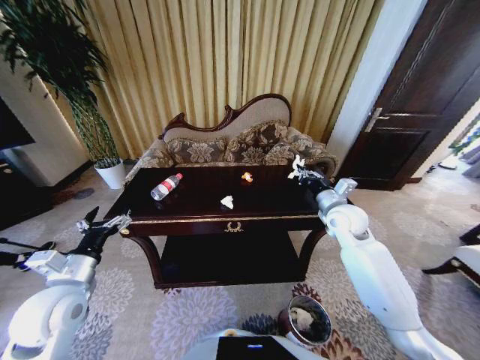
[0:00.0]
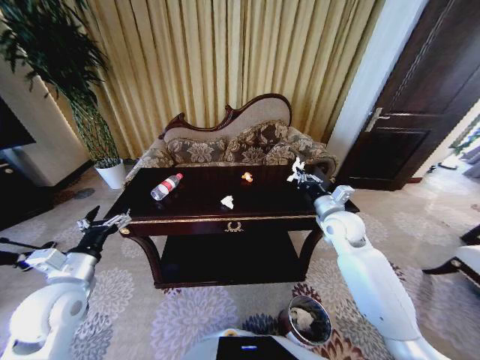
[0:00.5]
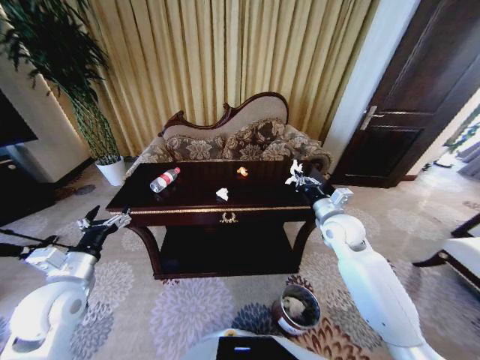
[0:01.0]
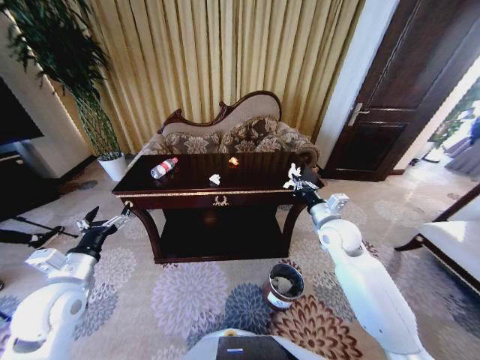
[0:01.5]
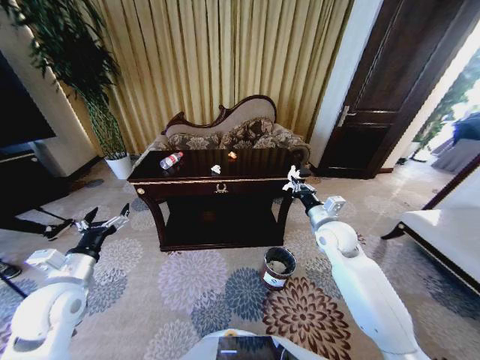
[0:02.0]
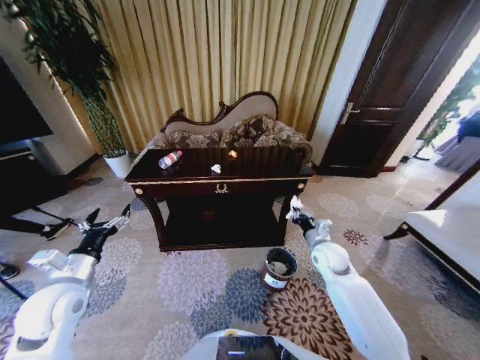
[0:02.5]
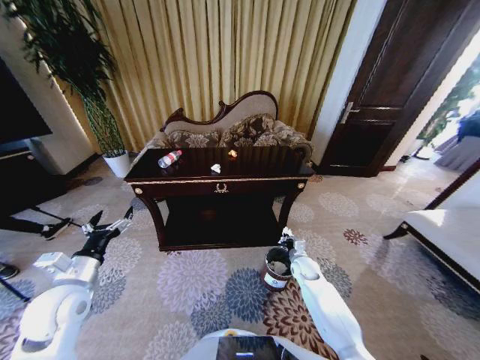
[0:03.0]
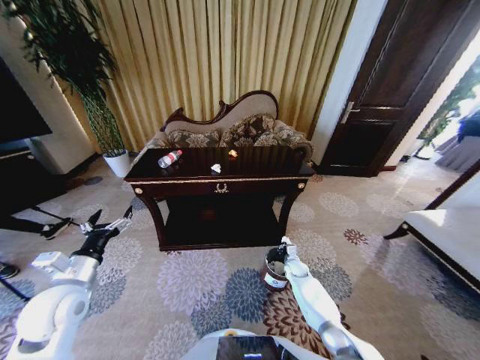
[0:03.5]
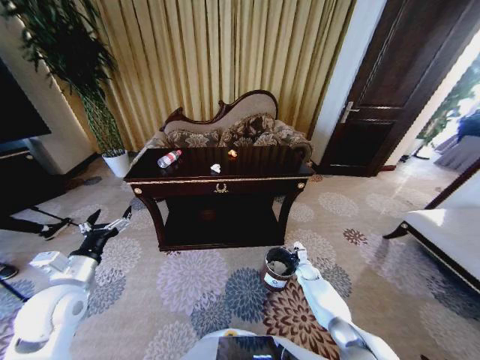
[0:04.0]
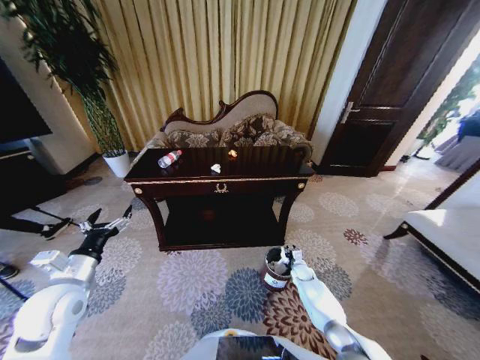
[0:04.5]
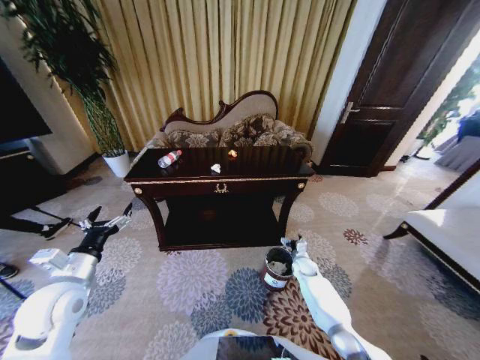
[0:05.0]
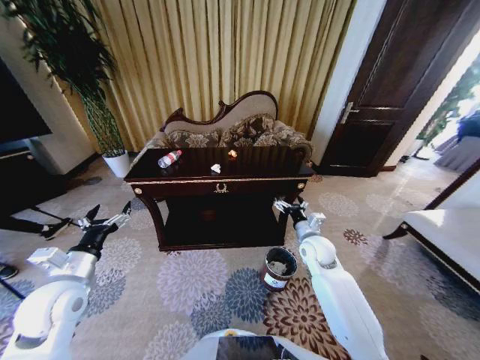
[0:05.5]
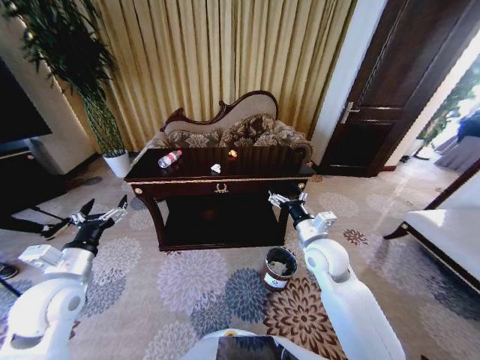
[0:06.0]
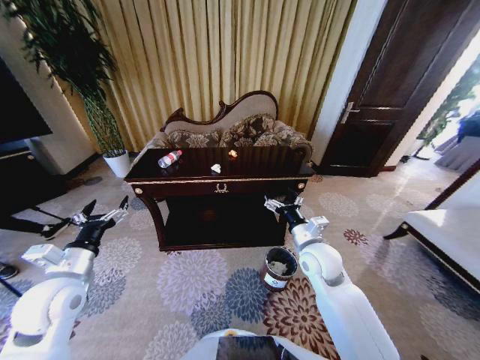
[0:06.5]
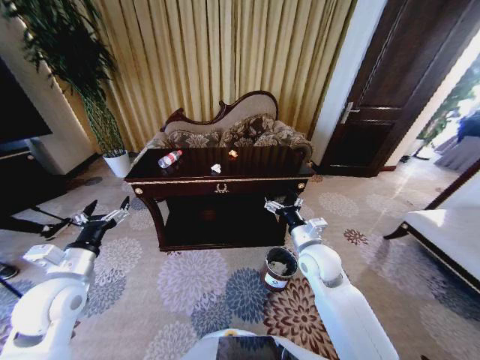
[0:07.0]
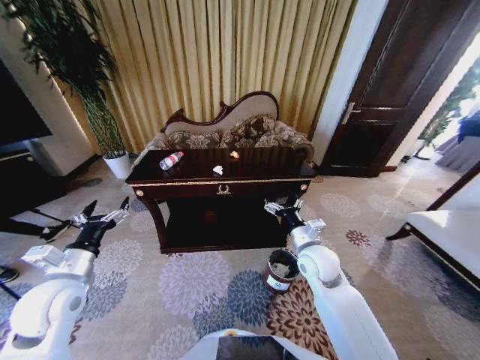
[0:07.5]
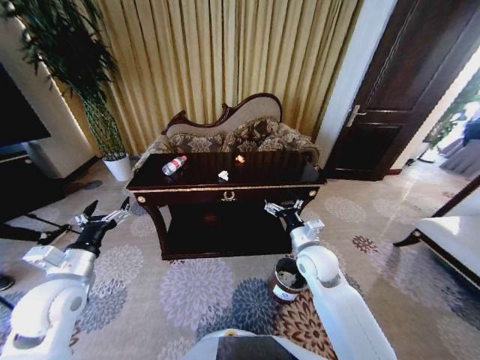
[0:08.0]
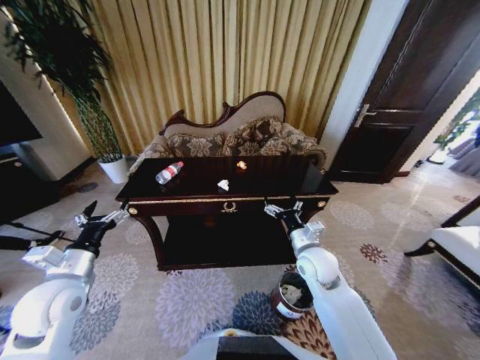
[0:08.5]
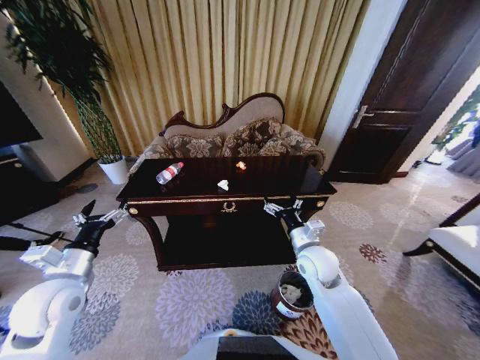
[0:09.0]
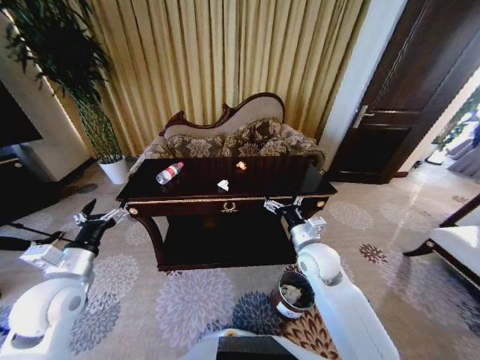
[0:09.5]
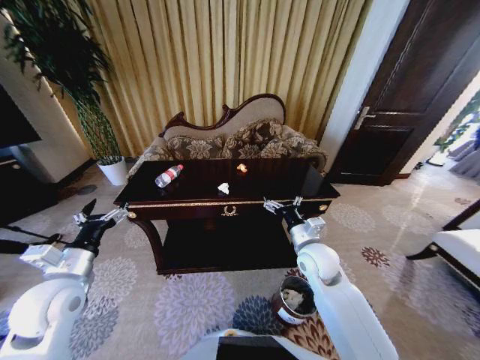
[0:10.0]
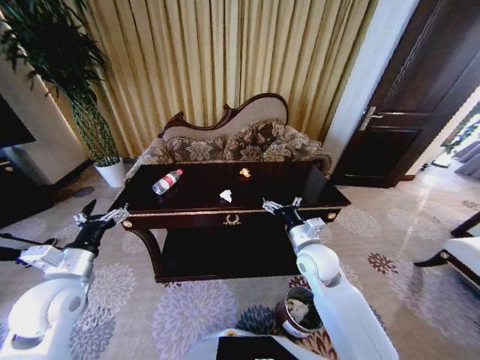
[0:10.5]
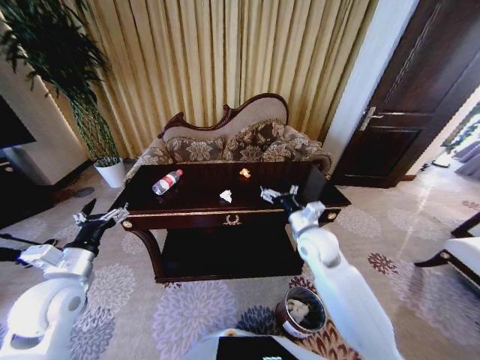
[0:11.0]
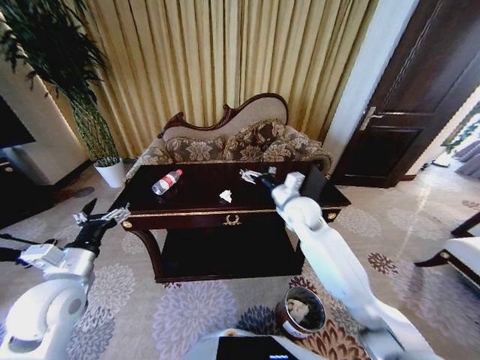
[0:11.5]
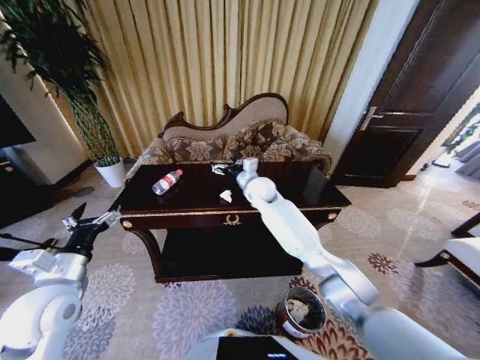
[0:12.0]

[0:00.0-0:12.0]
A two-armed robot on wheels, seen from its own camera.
Task of the whole recording: Move to the front of the table and place the trash on the table into the trash bin.
0:00.0 to 0:02.0: The right gripper ends up approximately 5 cm from where it was.
0:02.0 to 0:04.0: The right gripper heads downward, covering approximately 35 cm.
0:04.0 to 0:06.0: The right gripper is displaced upward by some 35 cm, and opens up.
0:10.0 to 0:12.0: The right gripper shifts about 25 cm forward and to the left.

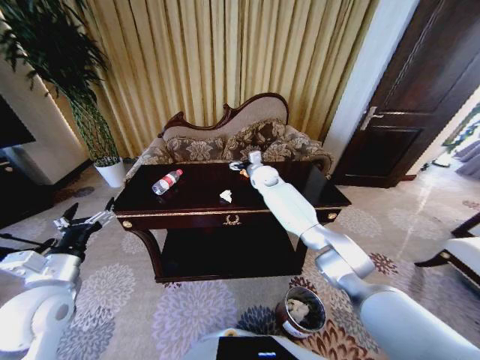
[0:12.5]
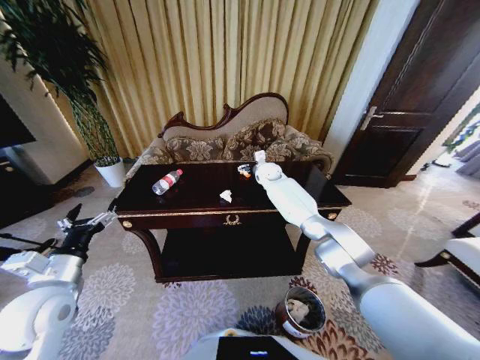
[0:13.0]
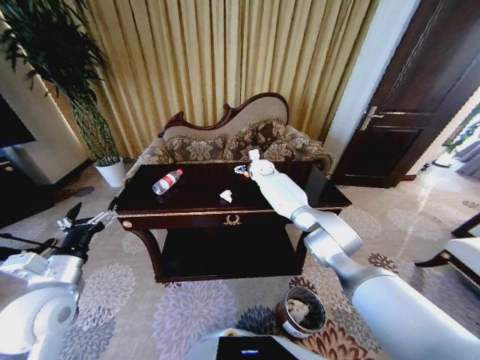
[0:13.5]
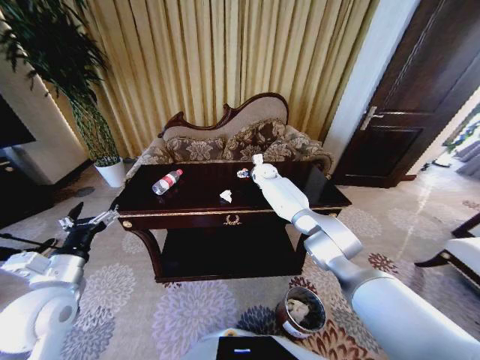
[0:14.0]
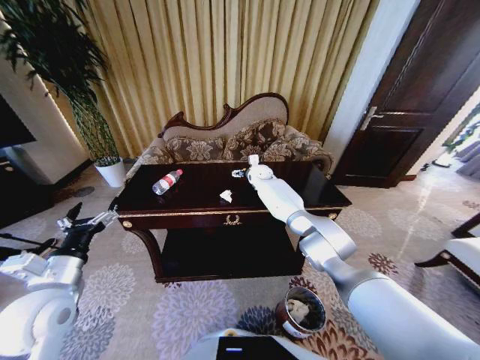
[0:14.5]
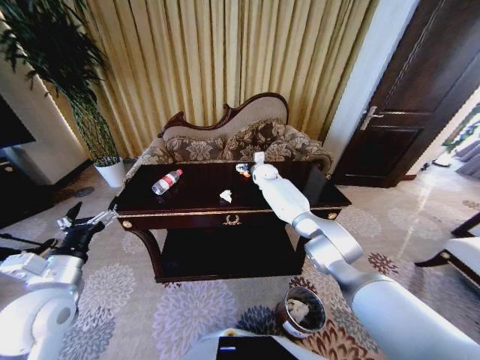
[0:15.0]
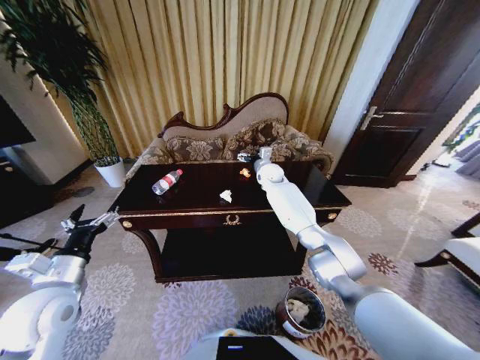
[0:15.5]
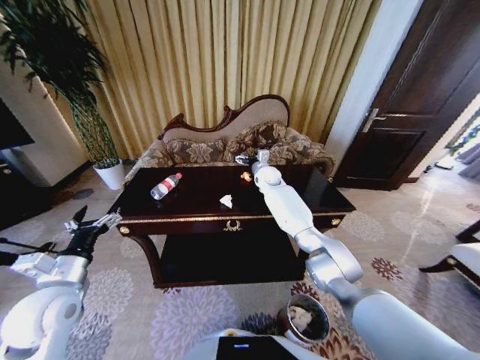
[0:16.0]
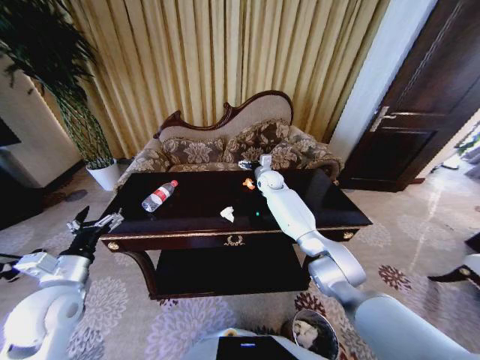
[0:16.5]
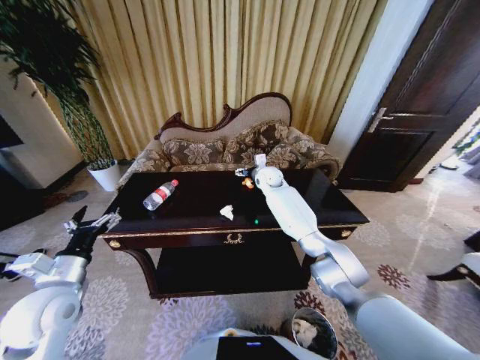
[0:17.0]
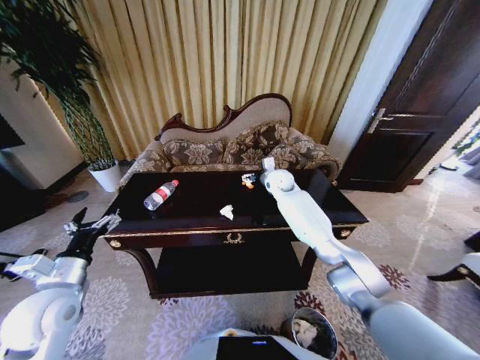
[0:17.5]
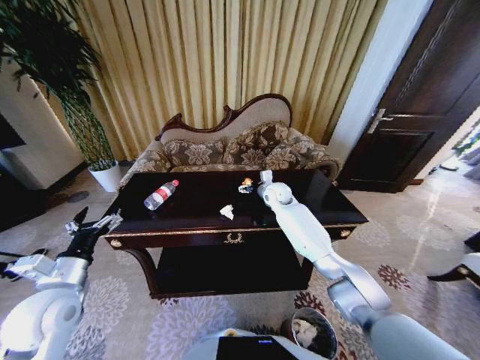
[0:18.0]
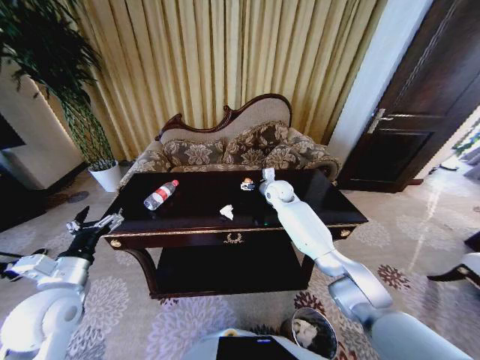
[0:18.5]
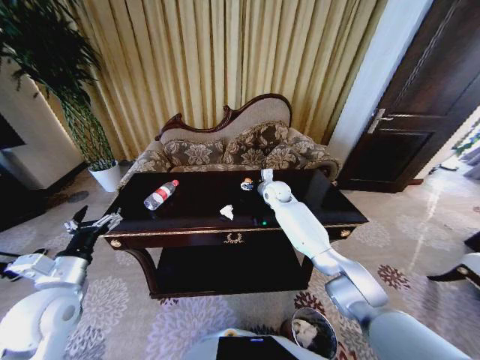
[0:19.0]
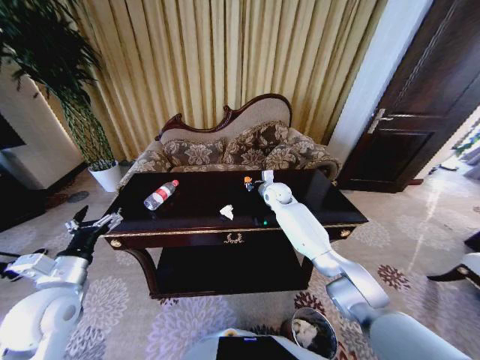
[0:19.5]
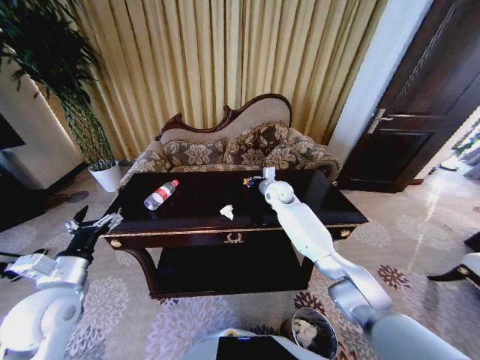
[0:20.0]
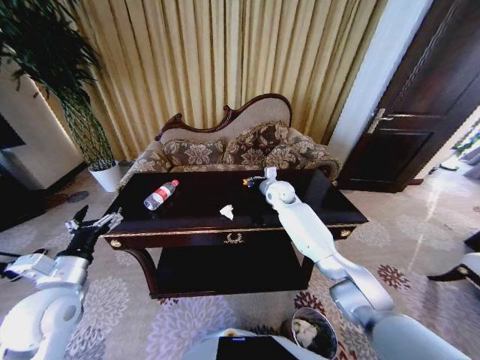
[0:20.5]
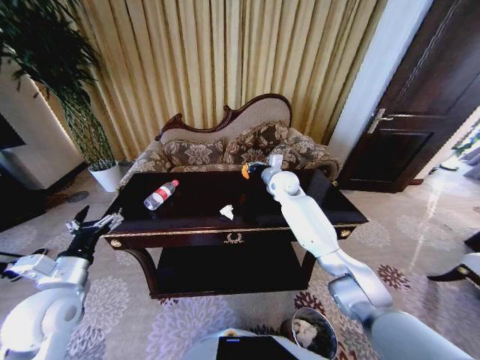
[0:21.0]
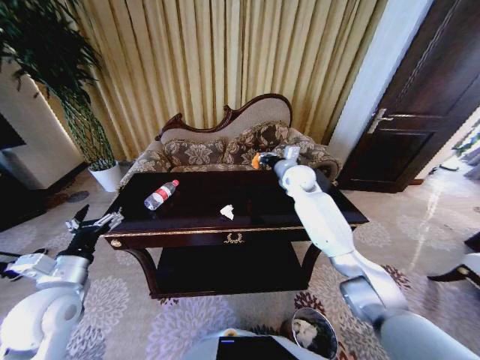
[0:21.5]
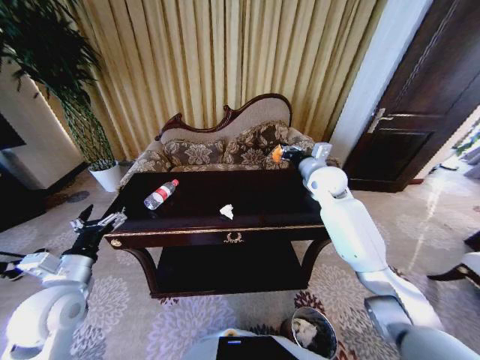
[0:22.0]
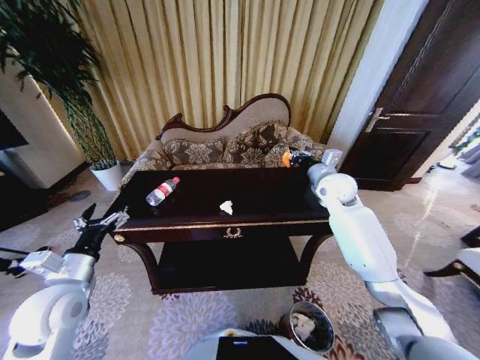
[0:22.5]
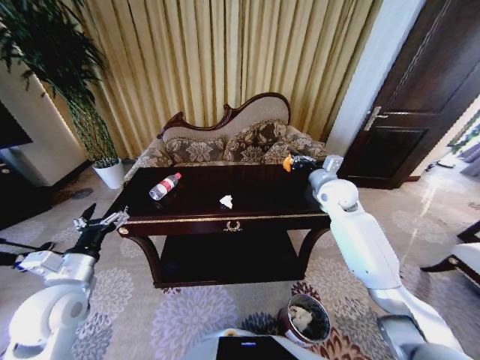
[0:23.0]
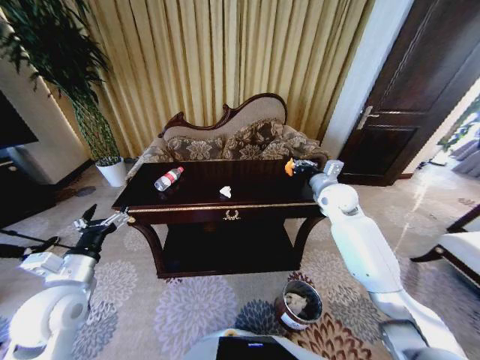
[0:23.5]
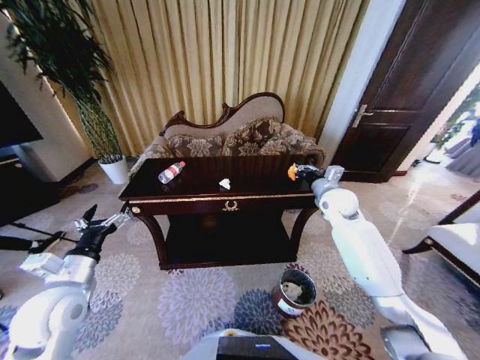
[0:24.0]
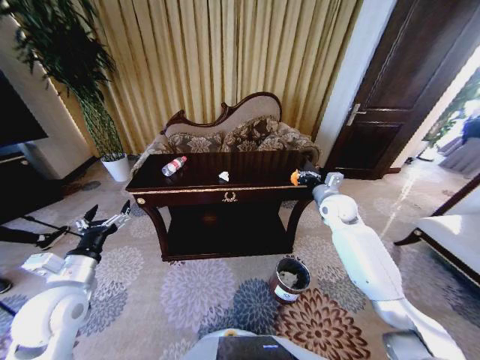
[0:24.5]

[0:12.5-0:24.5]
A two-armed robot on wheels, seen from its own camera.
Task of the whole recording: Move to the front of the table and place the trash on the table into the trash bin.
0:12.5 to 0:14.5: The right gripper is displaced forward by roughly 5 cm.
0:14.5 to 0:16.5: The right gripper moves about 5 cm.
0:16.5 to 0:18.5: The right gripper goes roughly 5 cm backward.
0:18.5 to 0:20.5: The right gripper closes up.
0:20.5 to 0:22.5: The right gripper shifts about 15 cm to the right, upward and backward.
0:22.5 to 0:24.5: The right gripper shifts approximately 5 cm downward.

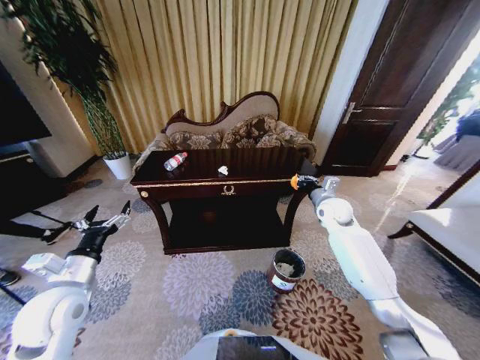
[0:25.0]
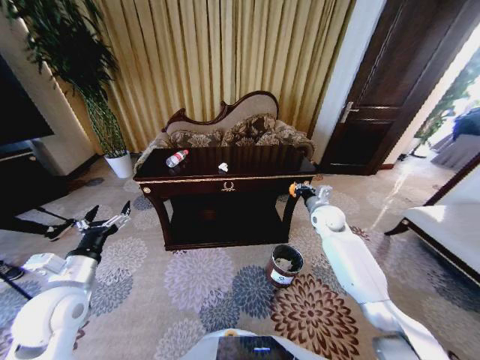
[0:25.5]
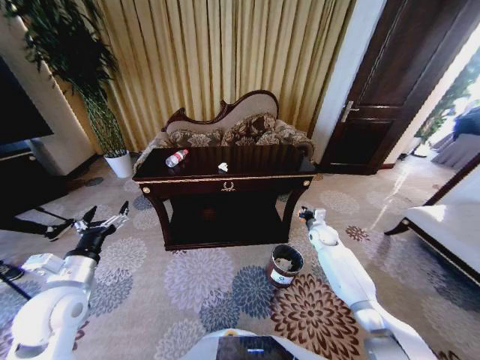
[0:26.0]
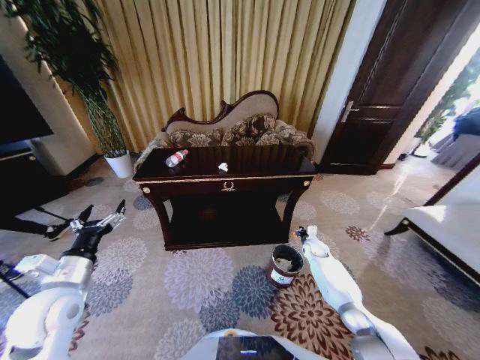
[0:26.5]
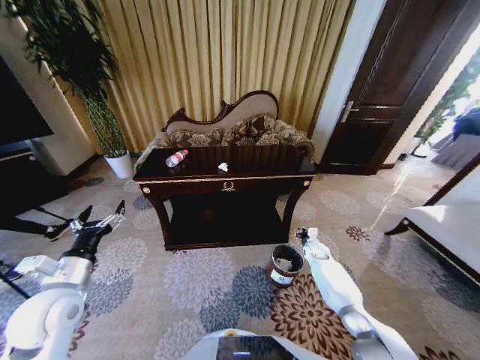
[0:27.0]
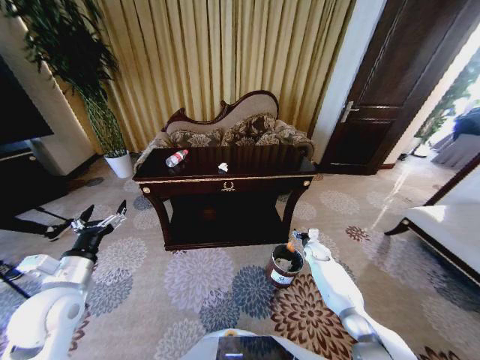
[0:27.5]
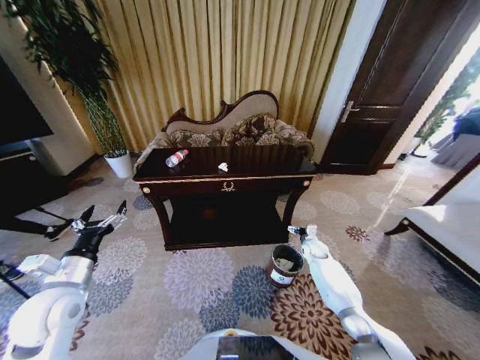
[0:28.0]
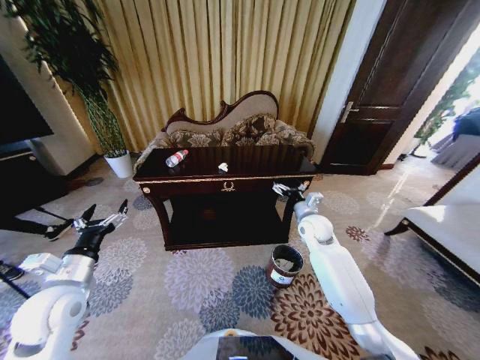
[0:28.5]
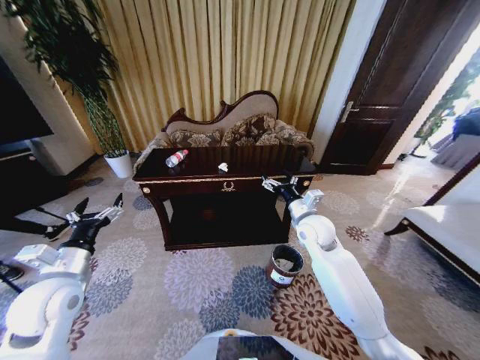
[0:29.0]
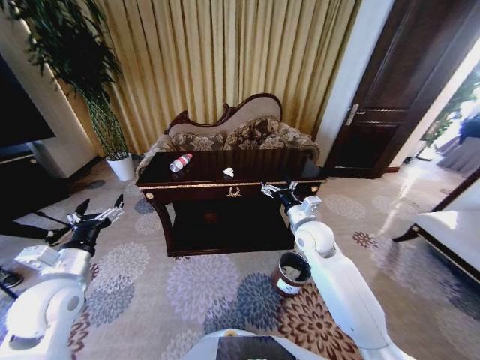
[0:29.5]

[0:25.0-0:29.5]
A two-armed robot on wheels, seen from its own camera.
Task of the whole recording: Move to the front of the table and place the trash on the table into the trash bin.
0:25.0 to 0:27.0: The right gripper heads downward, covering roughly 25 cm.
0:27.0 to 0:29.5: The right gripper goes some 30 cm upward and to the left, and opens.
